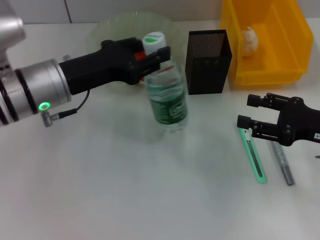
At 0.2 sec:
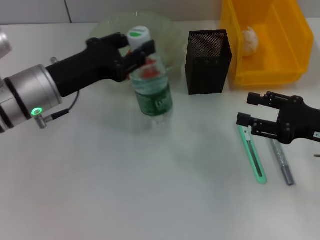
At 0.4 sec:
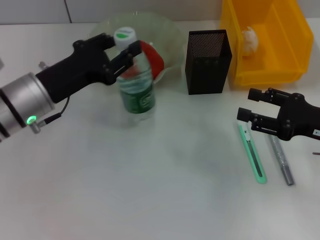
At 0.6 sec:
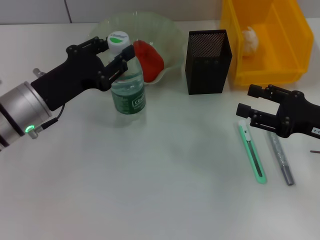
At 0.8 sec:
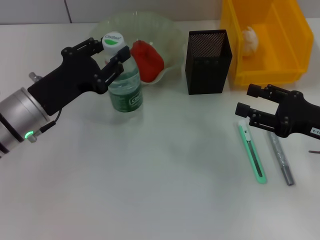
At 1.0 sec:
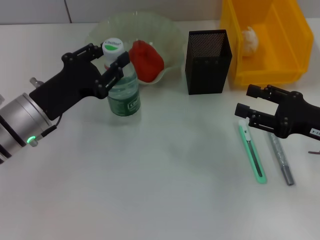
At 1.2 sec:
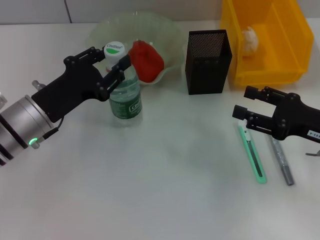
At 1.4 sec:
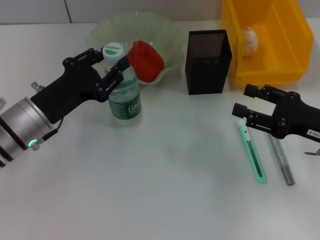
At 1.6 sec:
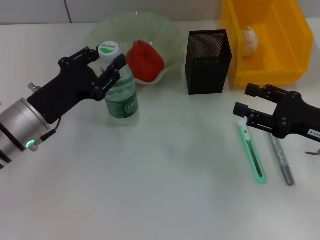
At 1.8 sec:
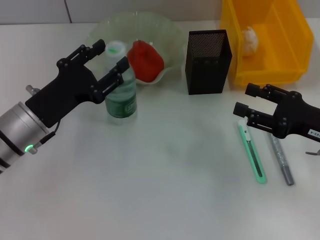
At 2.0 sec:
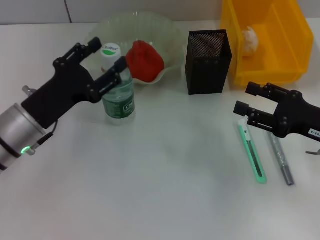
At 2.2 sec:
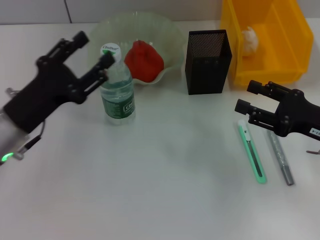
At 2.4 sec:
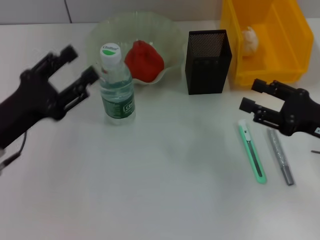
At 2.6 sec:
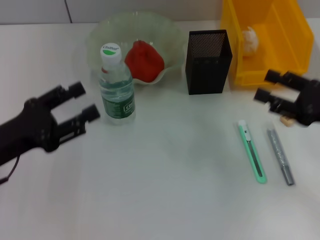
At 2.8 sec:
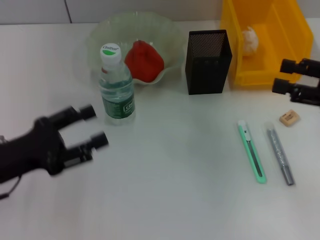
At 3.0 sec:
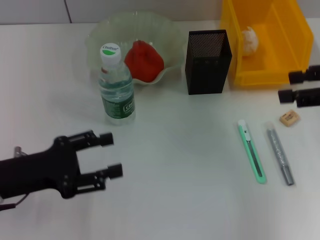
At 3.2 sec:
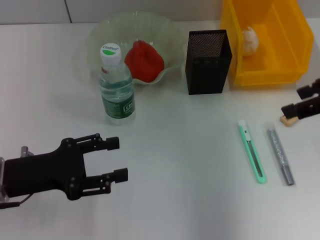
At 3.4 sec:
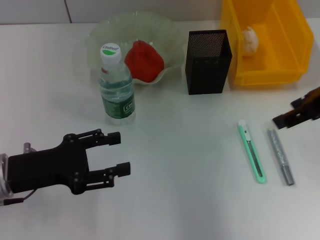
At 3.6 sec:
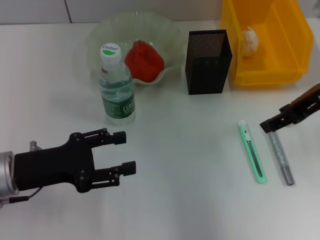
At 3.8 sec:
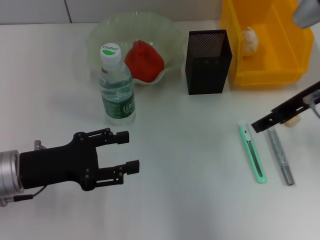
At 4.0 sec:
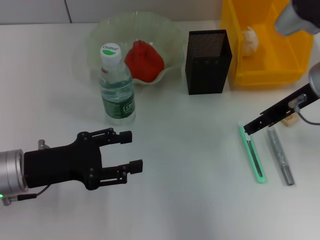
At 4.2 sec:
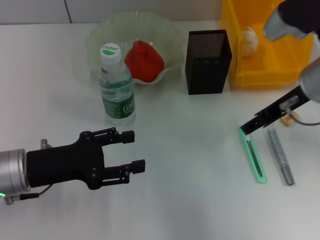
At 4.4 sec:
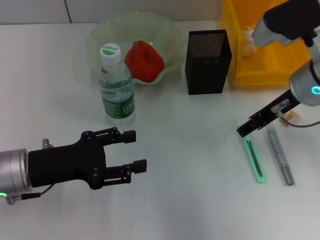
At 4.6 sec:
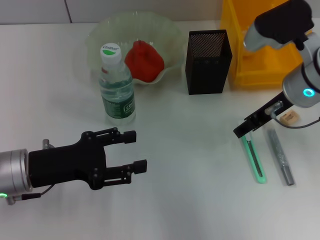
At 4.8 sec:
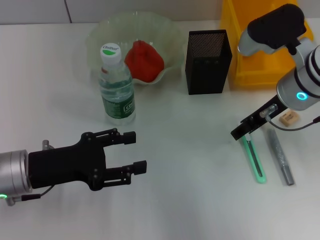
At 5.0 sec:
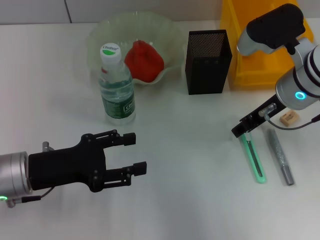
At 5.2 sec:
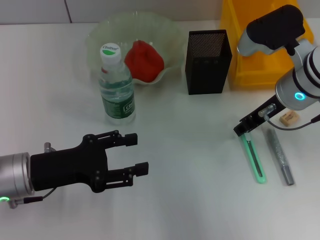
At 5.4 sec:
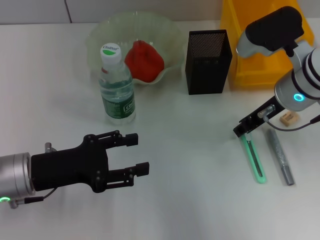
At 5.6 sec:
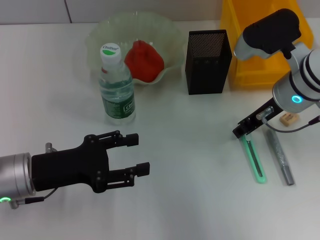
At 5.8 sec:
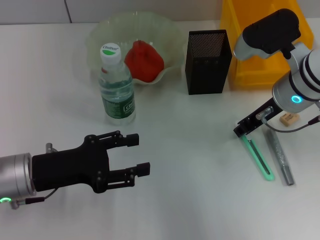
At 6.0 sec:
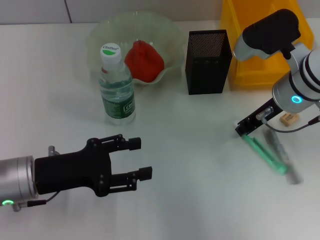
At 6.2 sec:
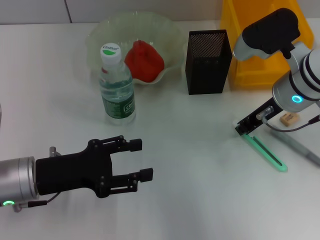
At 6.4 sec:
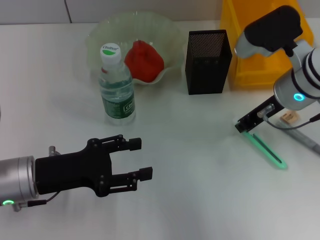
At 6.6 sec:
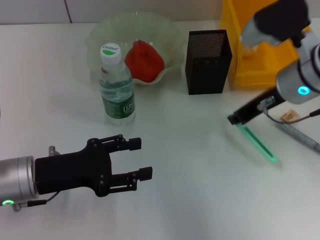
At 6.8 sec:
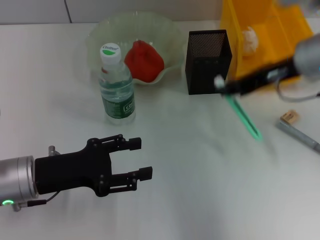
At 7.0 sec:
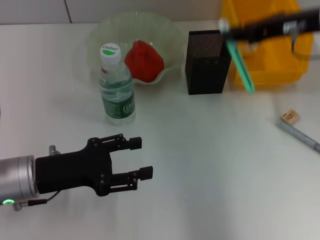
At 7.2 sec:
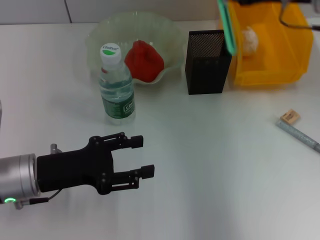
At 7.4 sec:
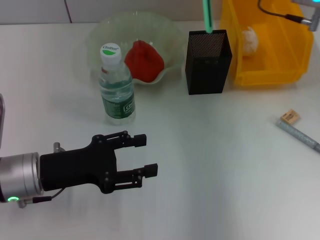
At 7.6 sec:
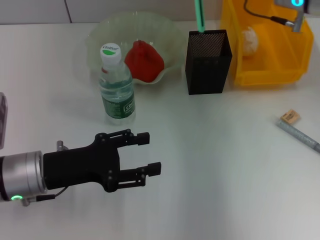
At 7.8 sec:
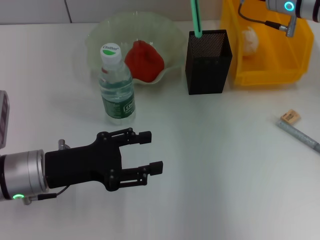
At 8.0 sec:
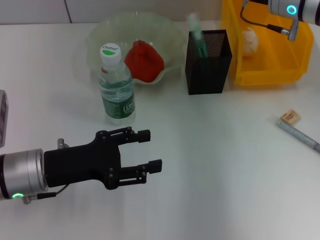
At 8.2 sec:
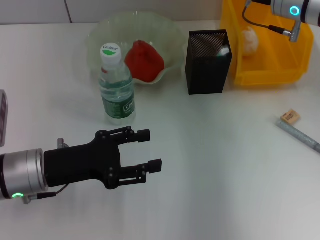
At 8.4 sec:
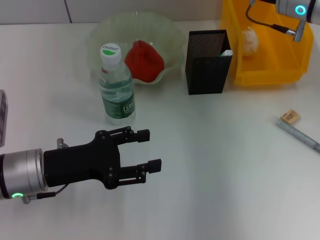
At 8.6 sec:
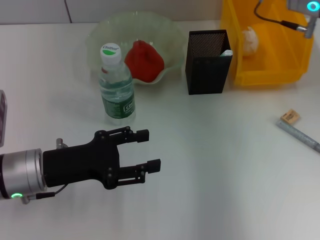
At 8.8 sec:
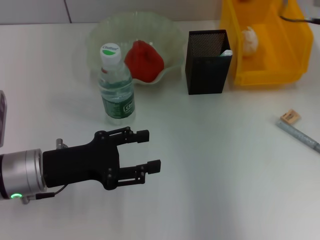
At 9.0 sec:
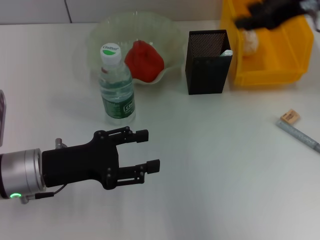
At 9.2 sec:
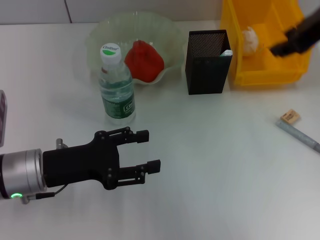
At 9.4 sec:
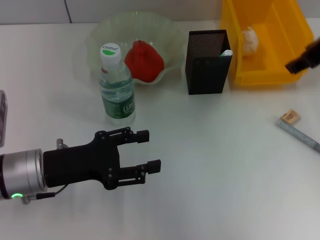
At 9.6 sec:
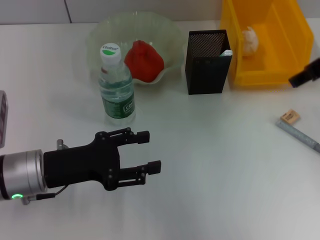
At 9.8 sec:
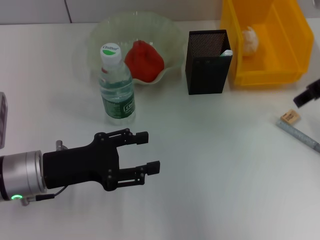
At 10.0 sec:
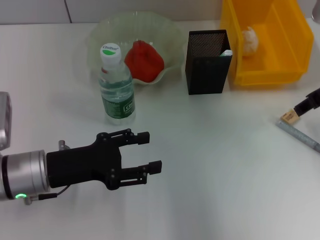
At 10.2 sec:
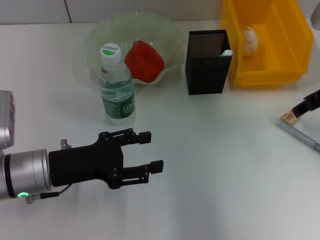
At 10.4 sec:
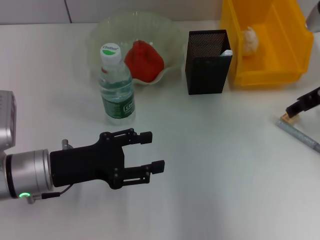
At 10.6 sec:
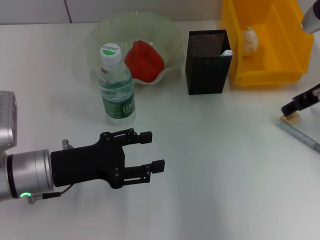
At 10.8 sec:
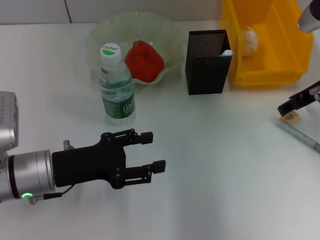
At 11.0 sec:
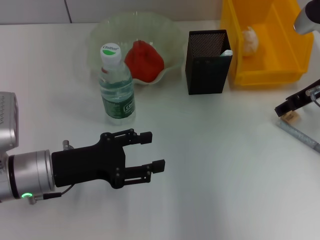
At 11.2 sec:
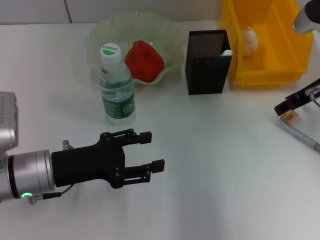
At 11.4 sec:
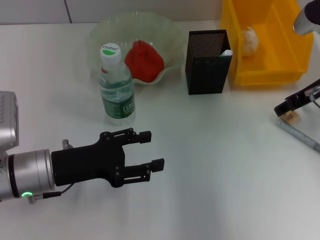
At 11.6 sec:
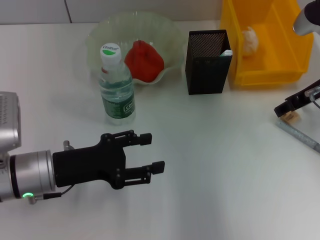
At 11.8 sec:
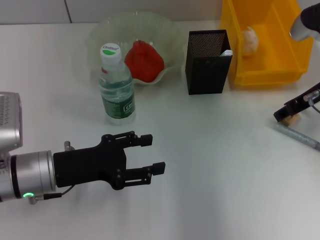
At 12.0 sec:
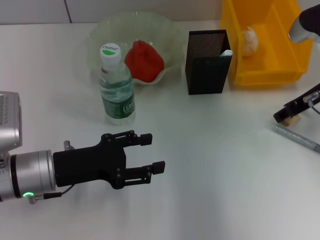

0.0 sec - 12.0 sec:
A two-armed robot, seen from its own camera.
Step, 2.0 sec - 6.2 sec: Grab the blue utility knife with the right hand.
Step, 6.6 sec - 8.0 sec: Place the blue utility knife into the pen holder with the right hand.
0.0 sec - 1.6 sec: The left gripper shifts approximately 5 cm downward.
1.6 sec - 3.0 sec: The right gripper moves upward, some 15 cm; the left gripper heads backward and to the left, covering about 10 cm, and opens.
3.0 sec - 4.4 sec: The right gripper travels to the left and forward by about 15 cm.
4.4 sec - 6.0 sec: The right gripper closes up.
6.0 sec - 7.6 sec: The right gripper goes roughly 10 cm forward and upward.
7.6 sec - 9.0 sec: The right gripper travels upward and backward by approximately 10 cm, and opens up.
9.0 sec - 10.4 sec: The right gripper shifts approximately 10 cm downward.
10.4 sec - 12.0 sec: The grippers make only small movements.

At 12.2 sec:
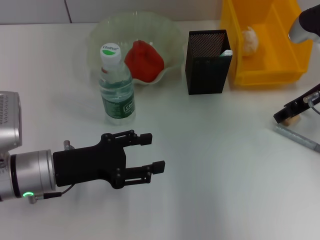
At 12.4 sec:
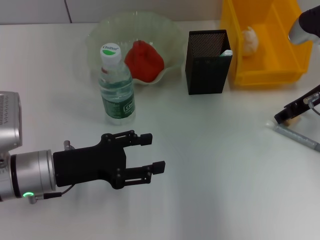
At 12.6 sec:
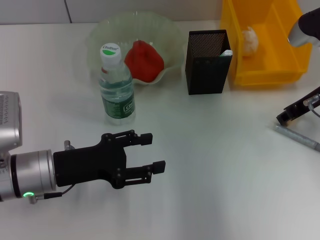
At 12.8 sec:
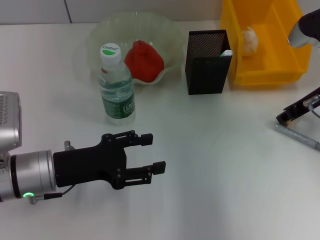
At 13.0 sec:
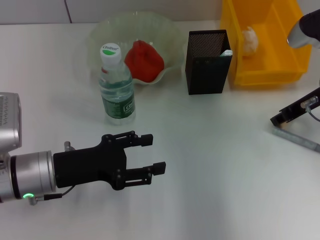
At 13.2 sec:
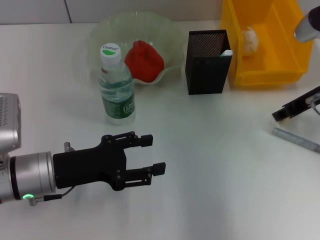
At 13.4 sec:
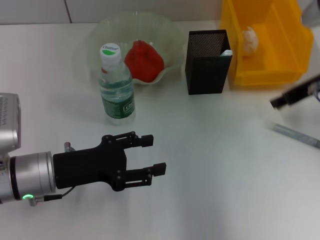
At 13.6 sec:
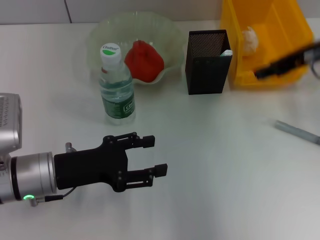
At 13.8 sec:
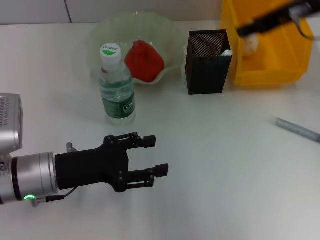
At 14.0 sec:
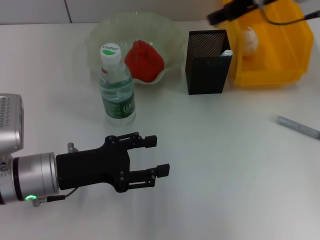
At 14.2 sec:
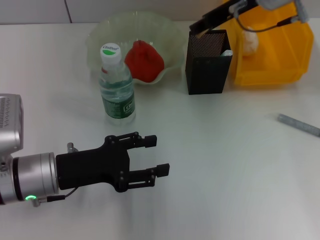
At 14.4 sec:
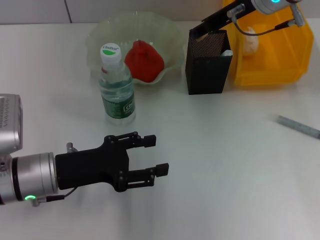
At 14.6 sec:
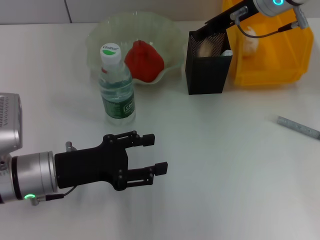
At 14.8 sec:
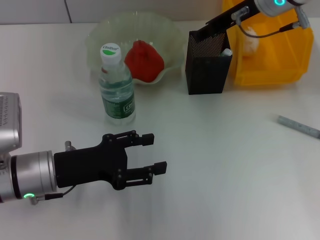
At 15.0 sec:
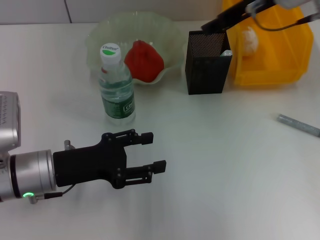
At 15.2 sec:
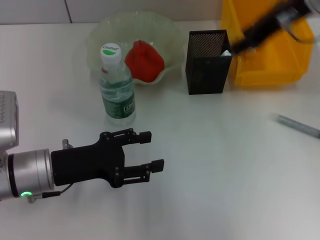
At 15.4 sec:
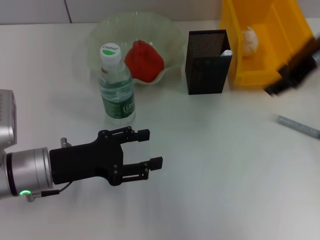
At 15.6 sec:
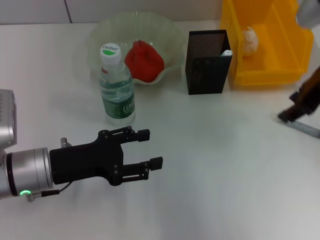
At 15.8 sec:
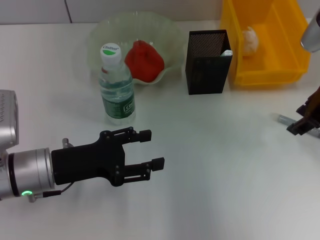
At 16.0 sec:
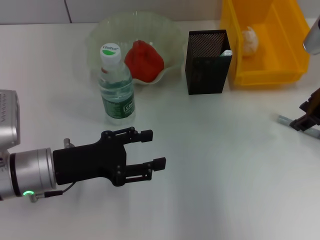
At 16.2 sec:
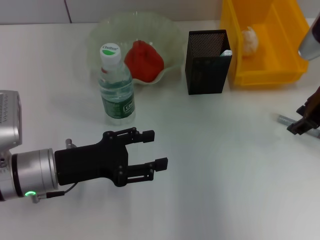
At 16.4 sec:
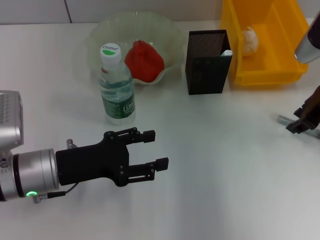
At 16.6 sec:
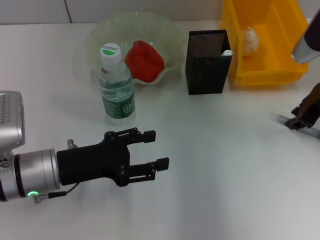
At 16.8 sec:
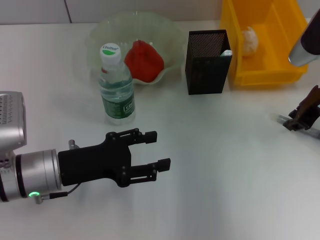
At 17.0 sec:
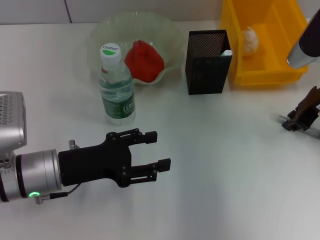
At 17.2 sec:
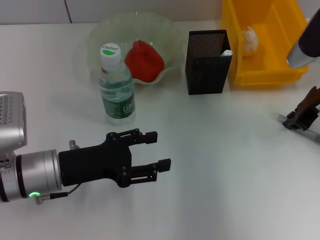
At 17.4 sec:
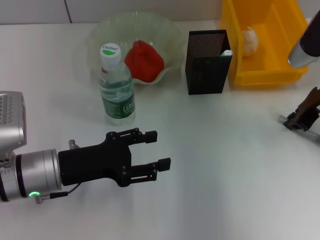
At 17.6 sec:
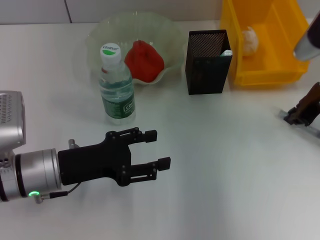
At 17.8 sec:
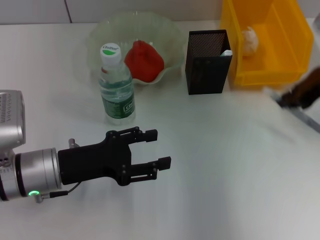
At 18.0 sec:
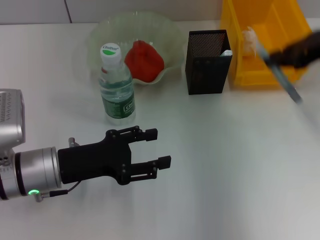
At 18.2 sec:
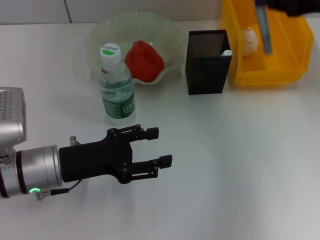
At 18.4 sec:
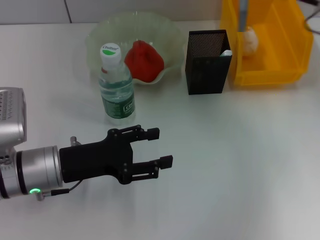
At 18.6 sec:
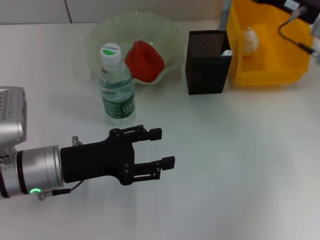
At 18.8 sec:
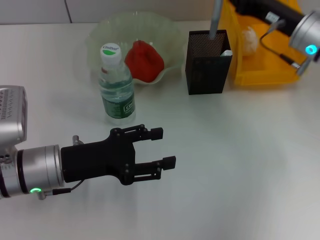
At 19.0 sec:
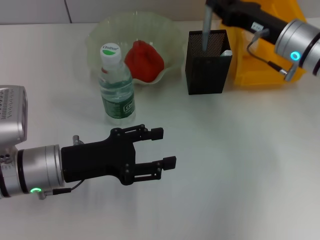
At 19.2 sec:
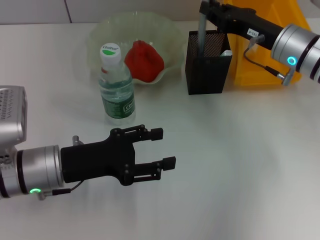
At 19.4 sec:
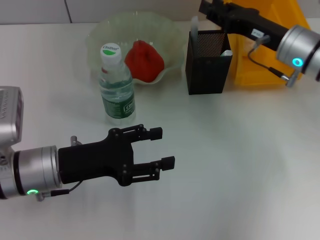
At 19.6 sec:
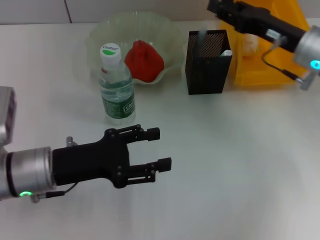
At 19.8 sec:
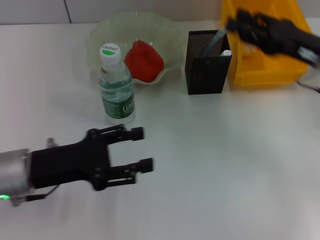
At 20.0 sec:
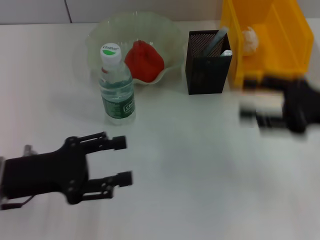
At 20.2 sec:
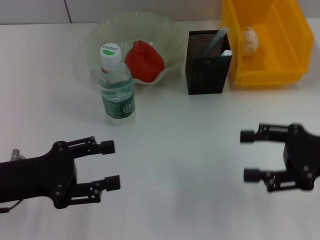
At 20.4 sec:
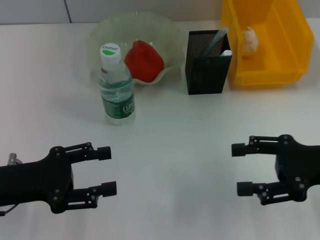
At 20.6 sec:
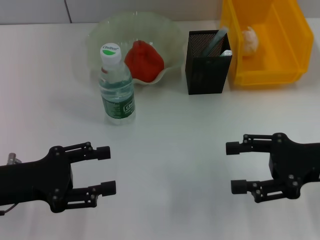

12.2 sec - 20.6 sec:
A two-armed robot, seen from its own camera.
Step, 13.2 sec - 14.4 sec: Put the eraser into the pen holder with the right hand.
Step, 14.8 sec - 17.4 sec: Grab the gray glue with the right hand.
Step, 17.6 sec - 19.4 sec: Place the gray glue into the pen holder with the right hand.
12.2 sec - 13.6 sec: The right gripper travels upward by some 10 cm, and closes up.
13.6 sec - 15.0 sec: The right gripper moves to the left, approximately 5 cm.
15.0 sec - 16.4 sec: The right gripper moves downward and to the right, some 15 cm.
16.4 sec - 17.8 sec: The right gripper closes its fingers.
17.8 sec - 19.2 sec: The right gripper is displaced downward and to the left by approximately 10 cm.
19.2 sec - 20.6 sec: The left gripper is displaced to the left by roughly 10 cm. The right gripper goes roughly 15 cm backward and to the right, and opens.
